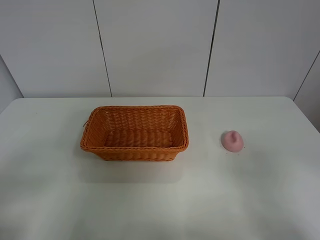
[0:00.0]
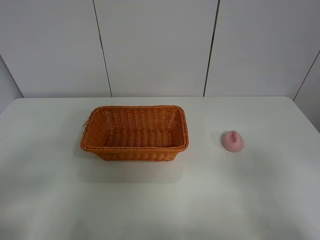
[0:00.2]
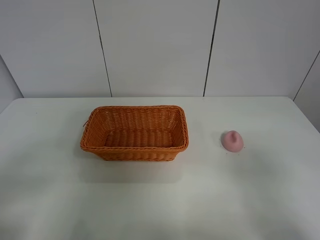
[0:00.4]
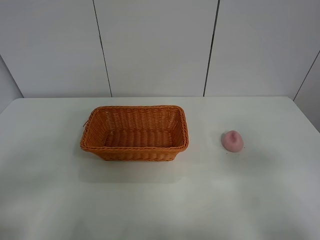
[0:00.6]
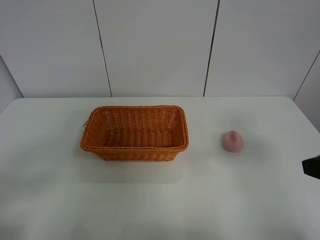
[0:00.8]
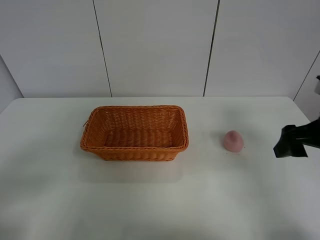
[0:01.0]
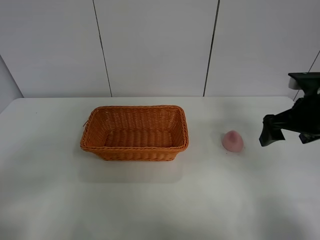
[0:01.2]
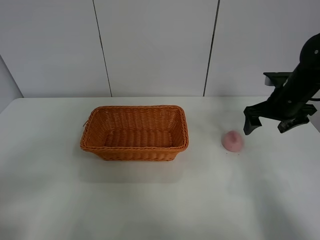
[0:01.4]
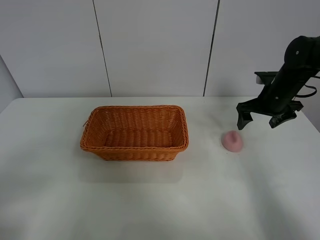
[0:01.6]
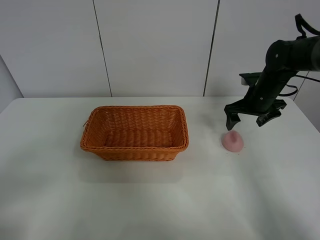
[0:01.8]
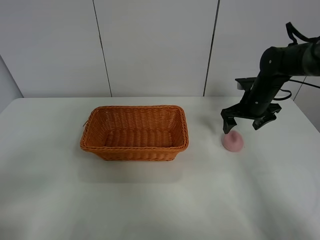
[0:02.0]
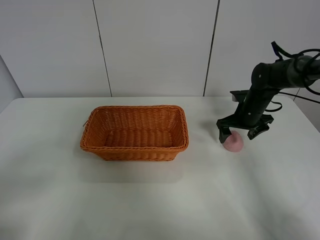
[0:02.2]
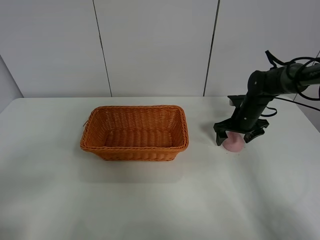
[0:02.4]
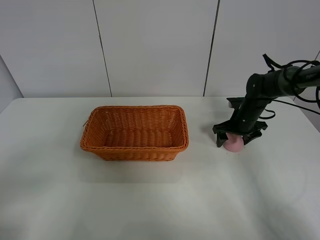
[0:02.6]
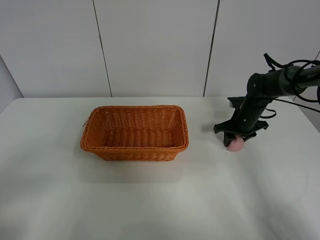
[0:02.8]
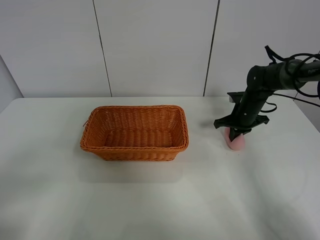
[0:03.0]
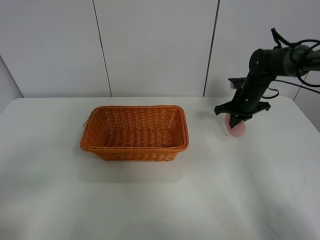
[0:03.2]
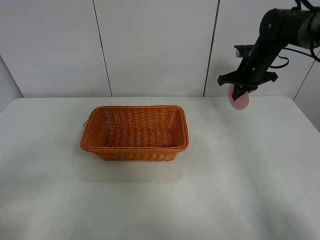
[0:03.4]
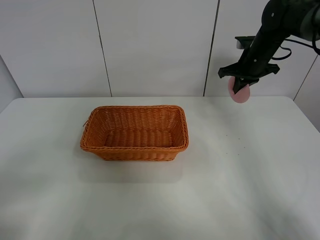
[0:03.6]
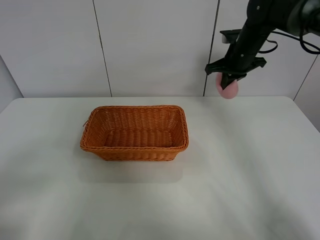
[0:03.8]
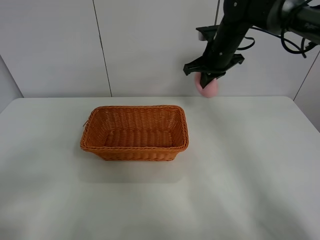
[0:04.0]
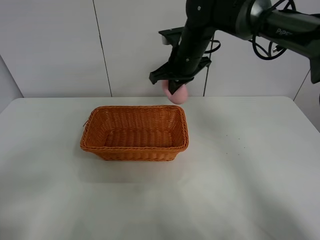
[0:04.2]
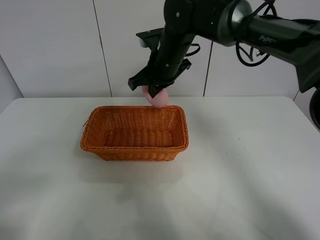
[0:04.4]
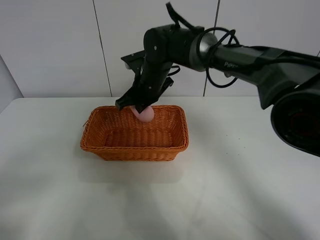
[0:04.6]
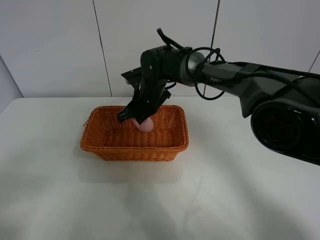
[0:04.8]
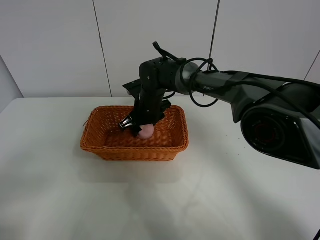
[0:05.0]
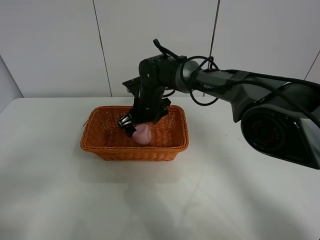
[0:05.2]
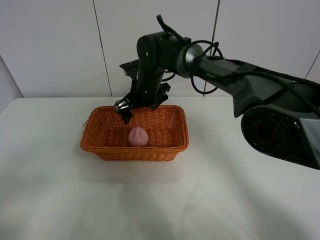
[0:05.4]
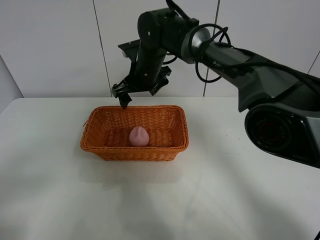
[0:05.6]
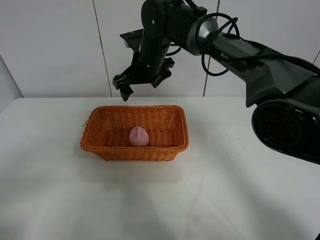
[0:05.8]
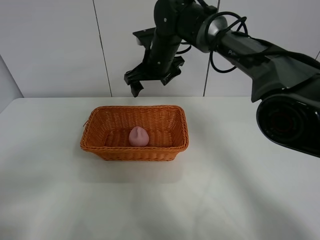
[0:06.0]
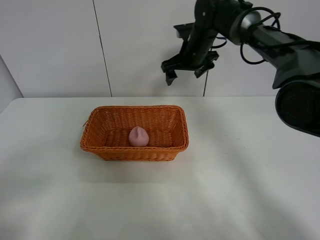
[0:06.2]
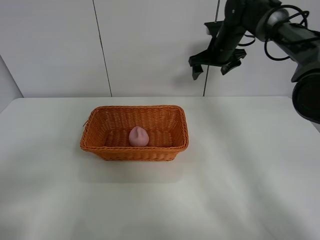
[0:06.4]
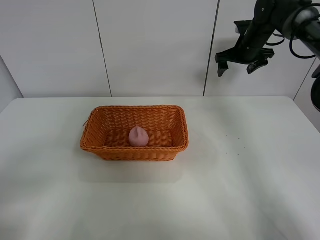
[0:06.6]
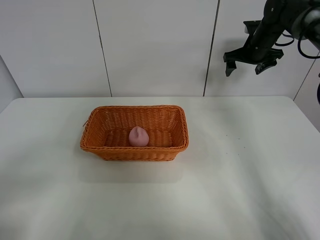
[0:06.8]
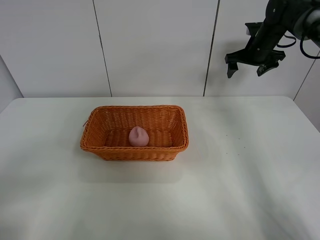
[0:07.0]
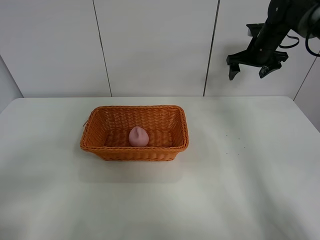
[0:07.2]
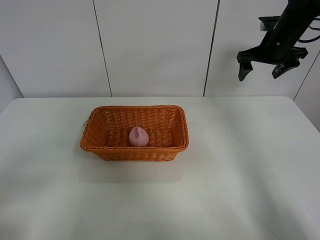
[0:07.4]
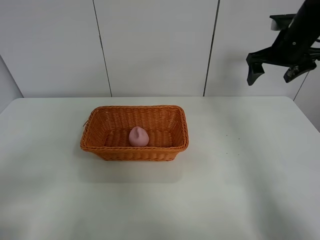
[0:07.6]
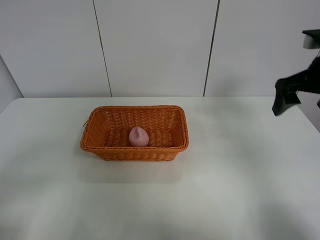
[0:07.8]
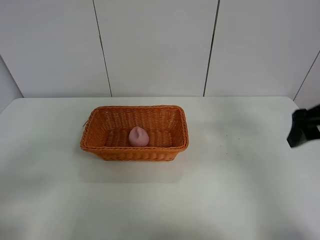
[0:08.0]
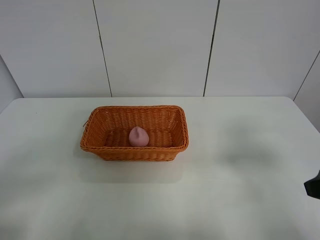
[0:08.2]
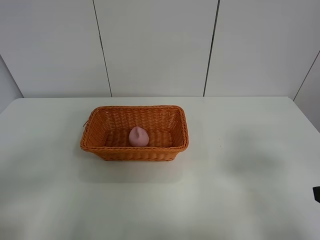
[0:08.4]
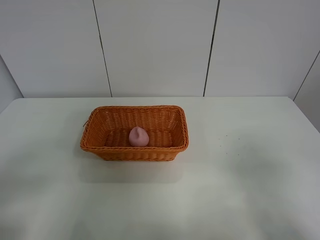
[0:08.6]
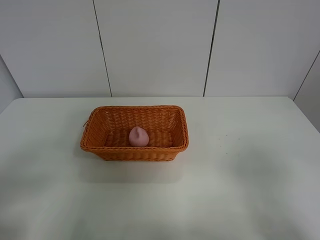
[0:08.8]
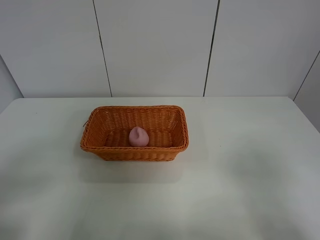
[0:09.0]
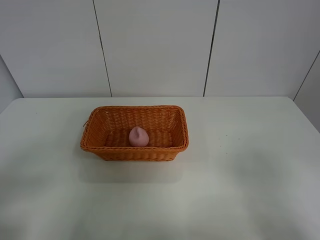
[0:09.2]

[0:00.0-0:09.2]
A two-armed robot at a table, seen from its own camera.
Step, 0:00.0 to 0:02.8: Grasp the peach with right gripper.
Step, 0:03.0 to 0:05.6: Place the peach in the basket with right gripper.
0:00.0 to 0:01.6: The right gripper moves forward, about 40 cm.
0:01.6 to 0:03.0: The right gripper goes approximately 10 cm downward, and closes up.
0:03.0 to 0:04.6: The right gripper heads to the left and upward, covering some 30 cm.
0:04.6 to 0:06.2: The right gripper goes about 15 cm to the right and forward, and opens up.
0:06.2 to 0:07.6: The right gripper heads to the right and backward, covering roughly 20 cm.
0:07.6 to 0:09.2: The right gripper is displaced backward by about 40 cm.
